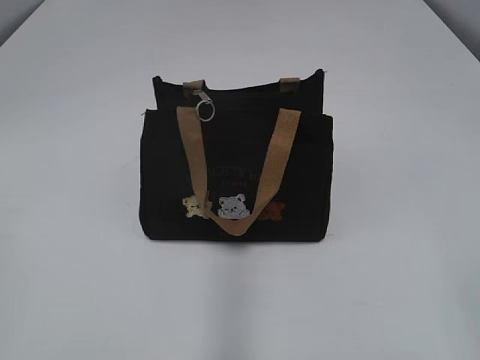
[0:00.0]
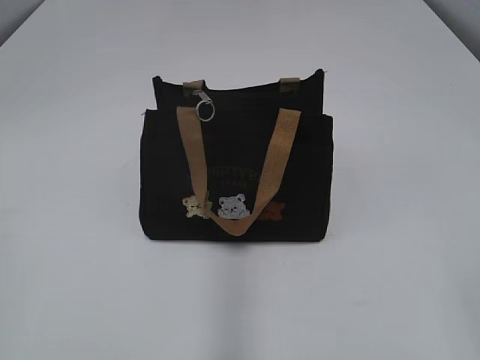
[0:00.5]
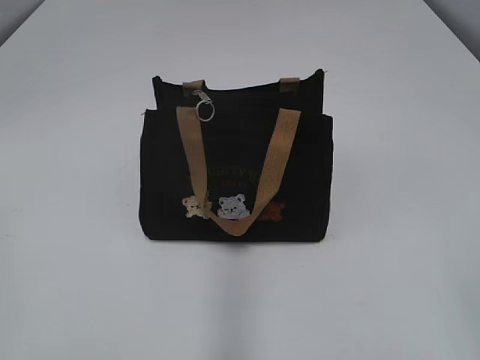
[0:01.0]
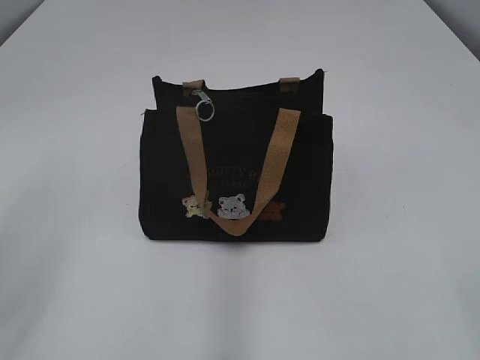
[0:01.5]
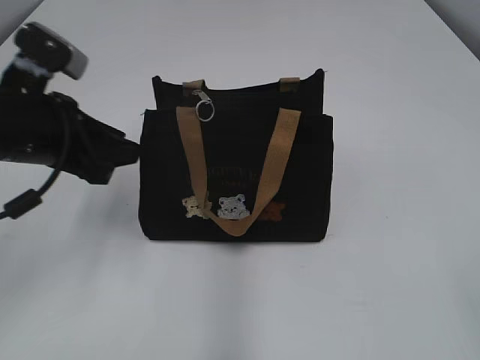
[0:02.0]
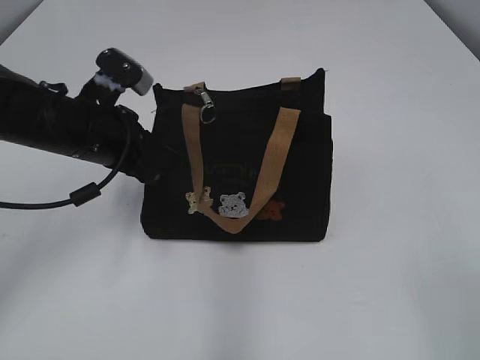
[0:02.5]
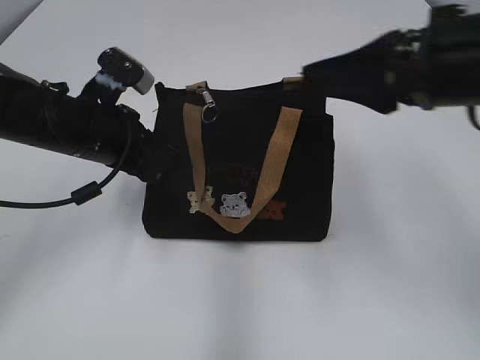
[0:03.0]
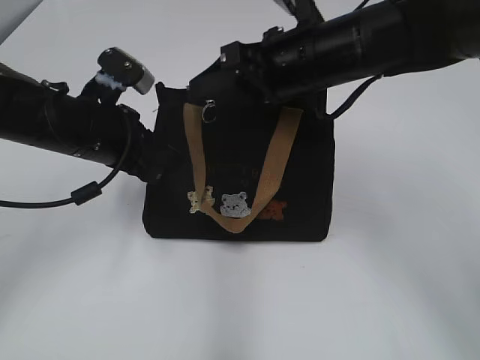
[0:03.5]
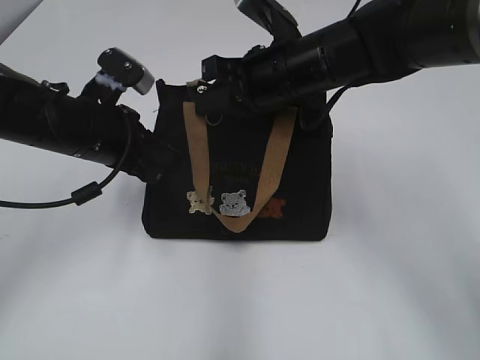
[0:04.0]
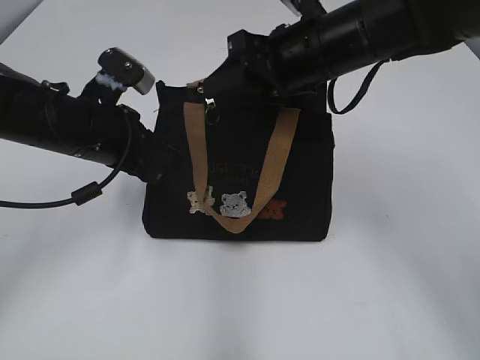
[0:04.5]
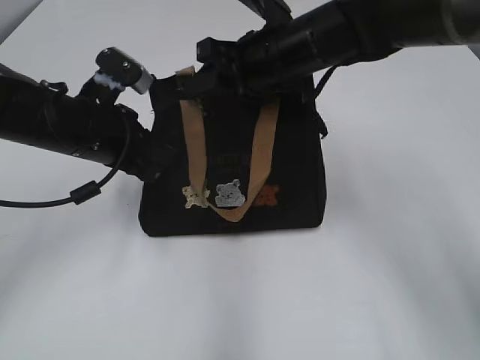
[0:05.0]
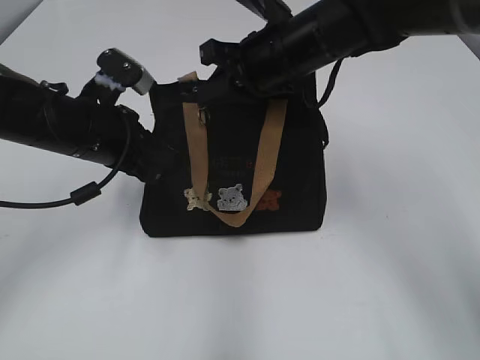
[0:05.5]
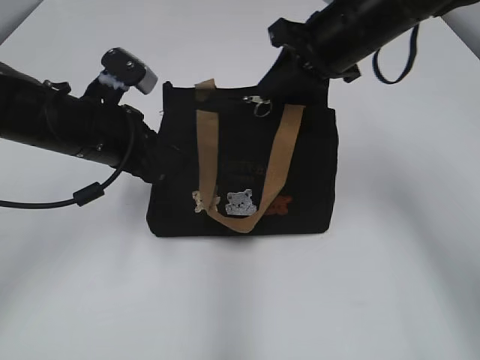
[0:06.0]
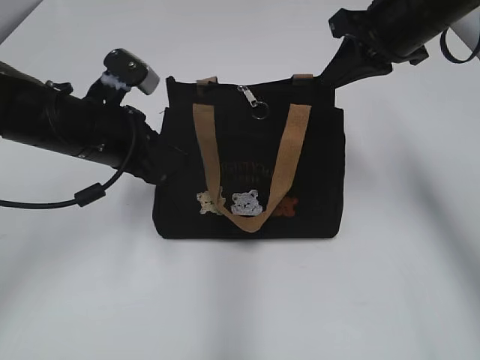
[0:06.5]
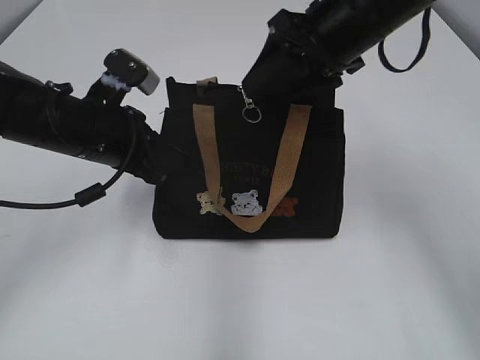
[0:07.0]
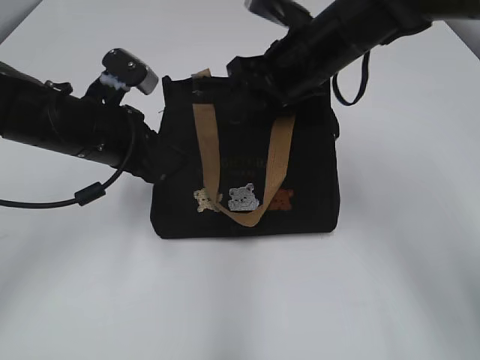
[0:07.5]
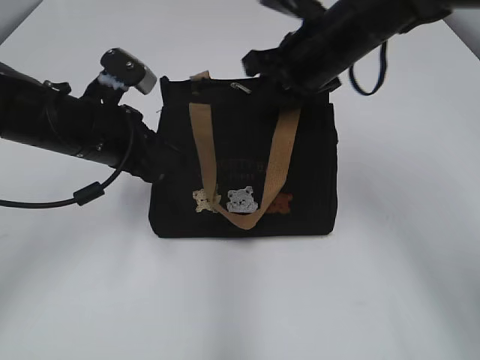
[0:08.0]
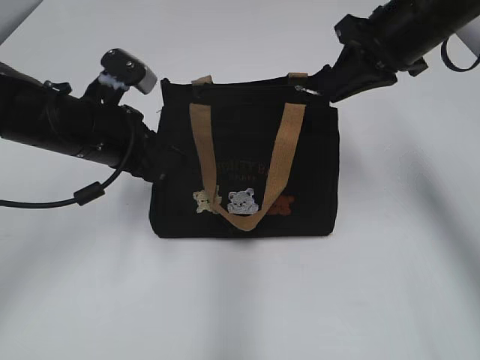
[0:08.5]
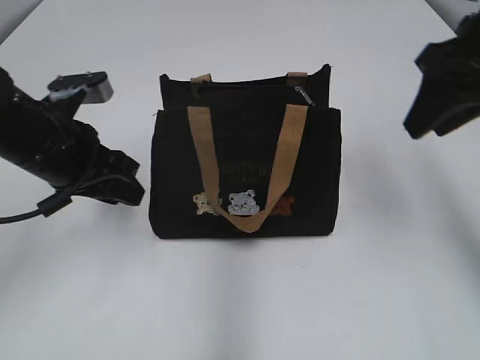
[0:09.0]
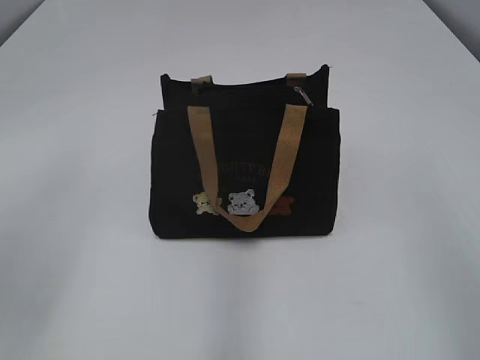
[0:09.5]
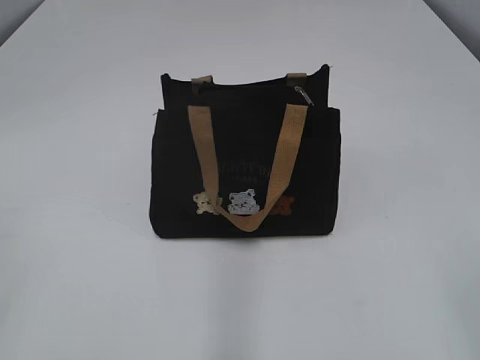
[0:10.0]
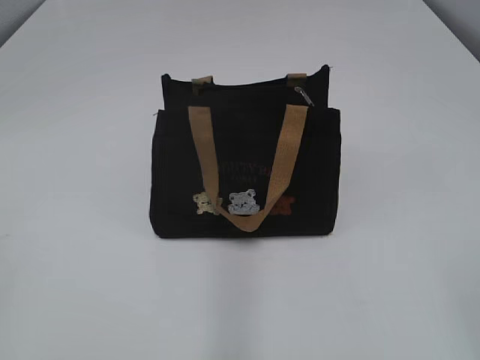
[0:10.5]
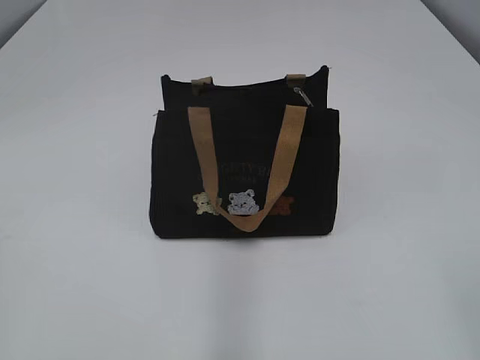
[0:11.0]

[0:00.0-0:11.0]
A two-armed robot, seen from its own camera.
Step, 0:00.0 to 0:08.5: Pull open the zipper with your right hand.
0:02.0 to 0:03.5: The right gripper heads forward and to the left, covering approximately 40 cm. Meanwhile the left gripper moves forward, to the right and downward, about 10 cm, and closes its fingers.
0:03.5 to 0:05.5: The right gripper moves about 5 cm, and closes.
0:05.5 to 0:07.5: The right gripper travels to the right and back again, approximately 15 cm each way, and opens its fingers.
0:07.5 to 0:09.0: The right gripper shifts roughly 15 cm to the right, backward and upward, and closes and opens again. The left gripper opens.
0:09.0 to 0:11.0: The right gripper moves backward, about 30 cm; the left gripper heads backward and to the left, covering some 35 cm.

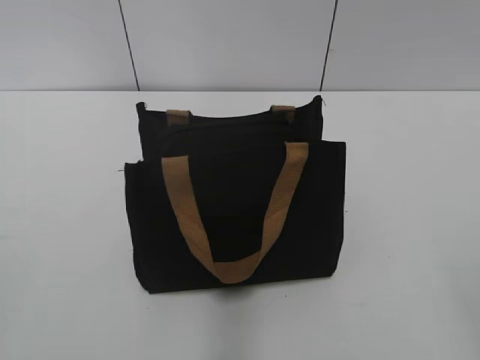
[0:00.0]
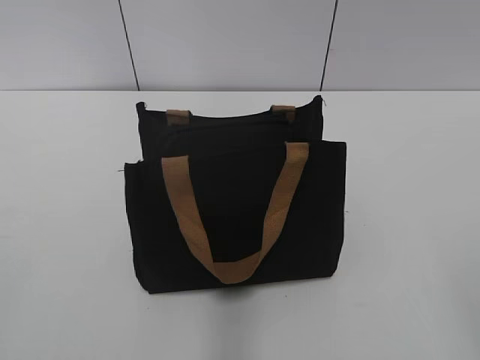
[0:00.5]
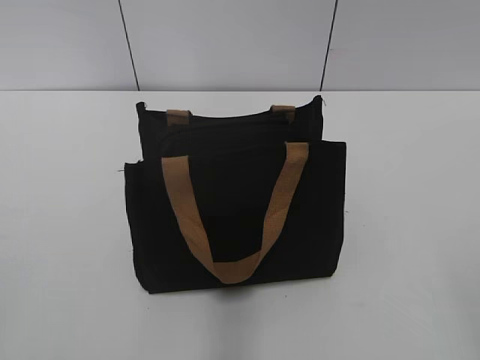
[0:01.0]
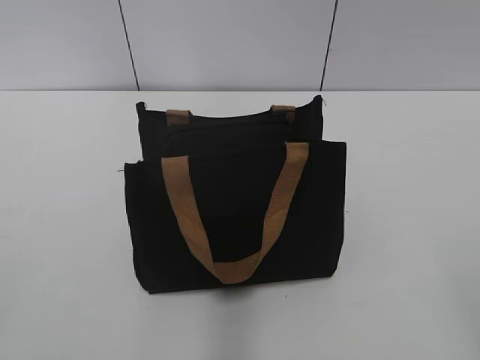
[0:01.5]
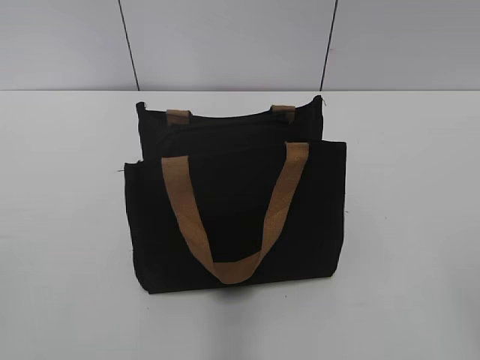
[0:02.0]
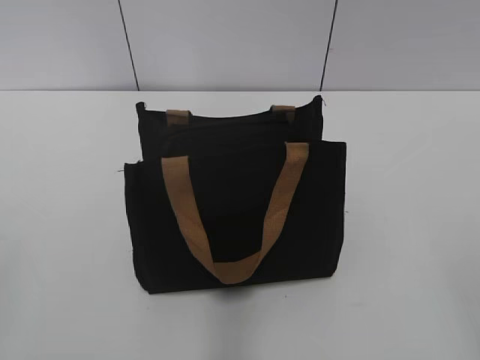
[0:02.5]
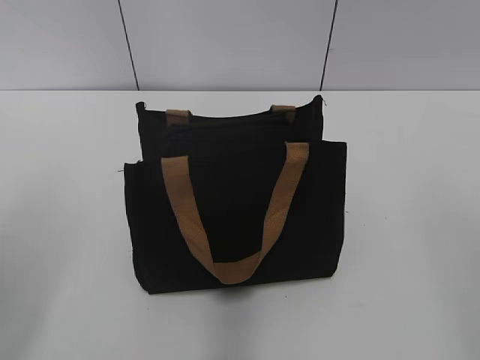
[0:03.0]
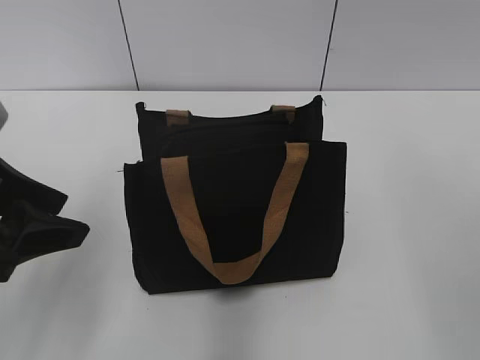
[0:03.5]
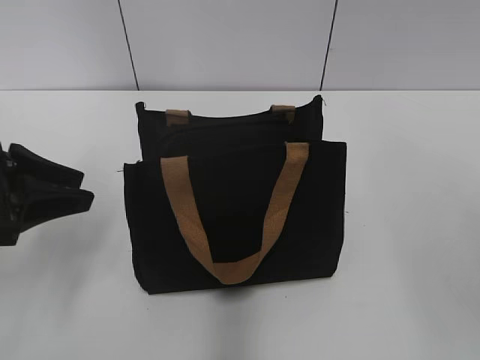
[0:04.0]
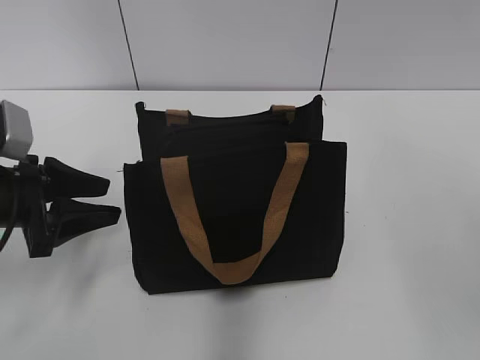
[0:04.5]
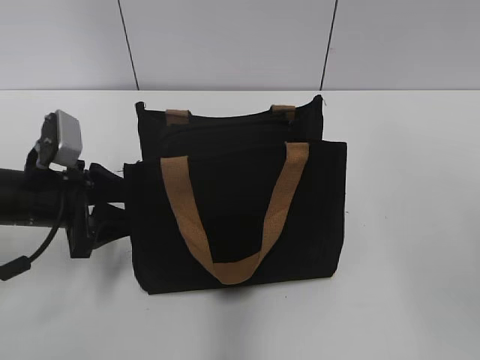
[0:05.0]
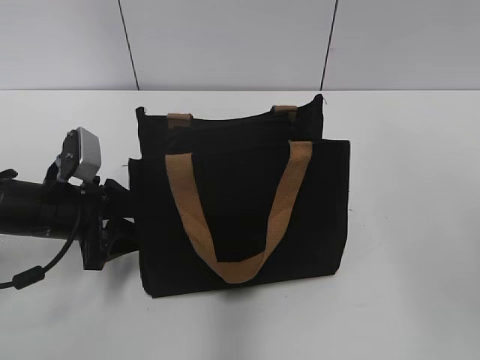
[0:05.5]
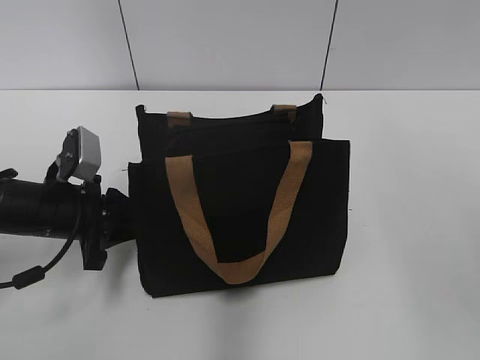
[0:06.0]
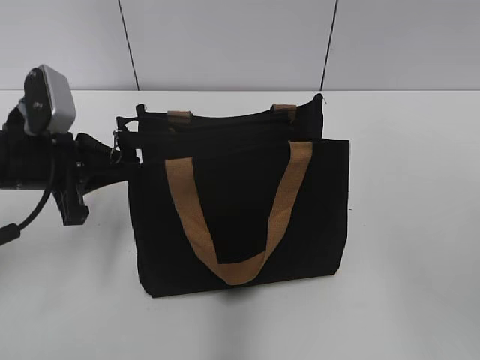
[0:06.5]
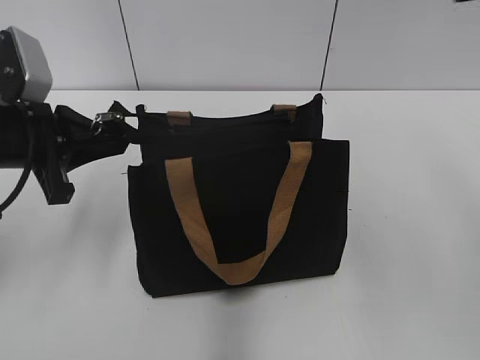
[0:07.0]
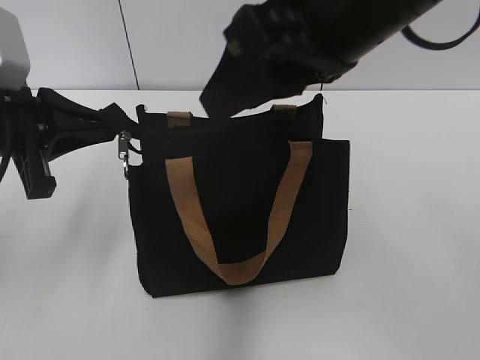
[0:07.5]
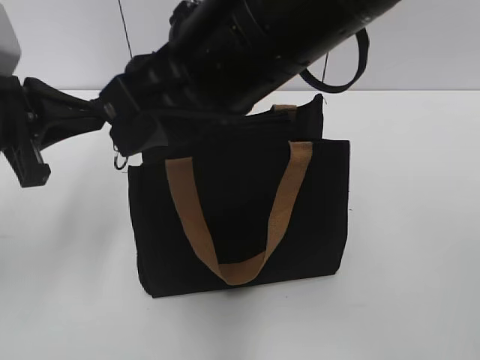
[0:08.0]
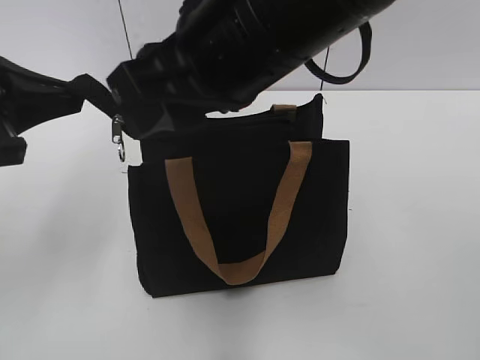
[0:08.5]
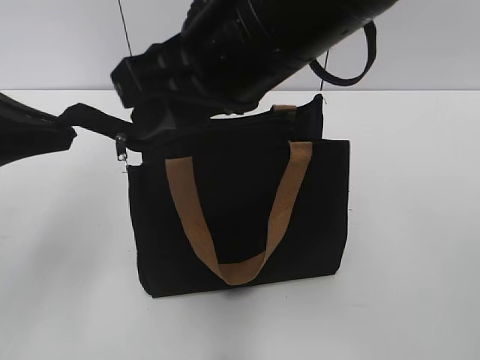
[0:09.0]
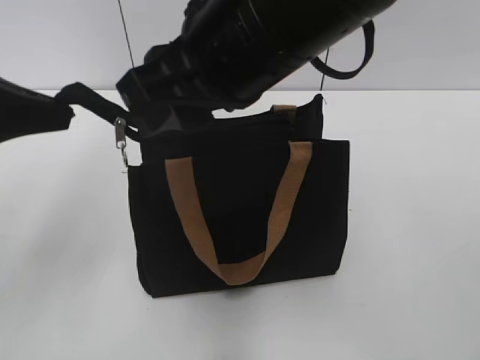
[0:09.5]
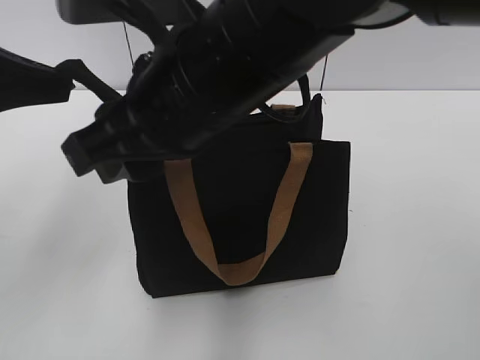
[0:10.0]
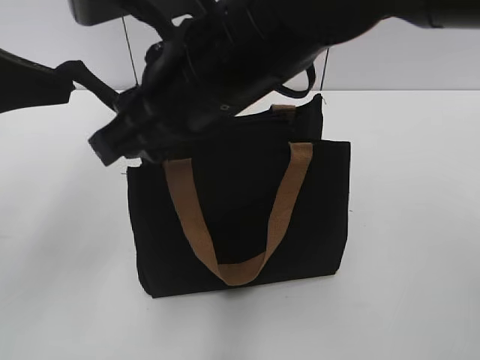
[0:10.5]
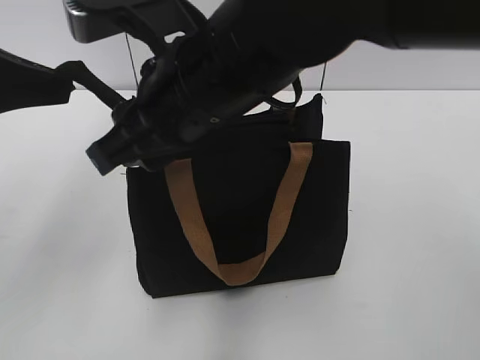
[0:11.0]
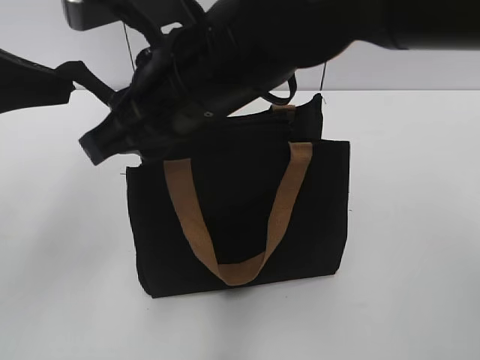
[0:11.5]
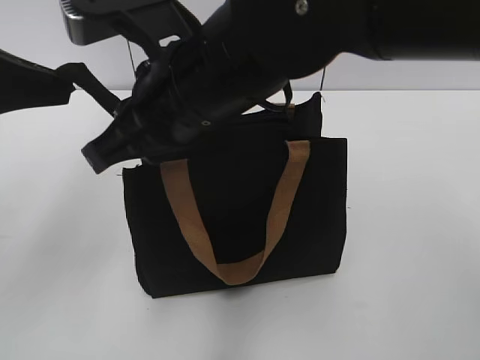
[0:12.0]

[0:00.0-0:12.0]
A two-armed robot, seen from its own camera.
0:02.0 to 0:04.0: The left gripper travels forward by some 25 cm.
0:04.0 to 0:06.0: The left gripper moves downward and to the right, some 10 cm, and closes its fingers.
0:06.0 to 0:08.0: The left gripper moves upward, approximately 15 cm, while the right gripper is displaced to the left by some 25 cm.
0:08.0 to 0:10.0: The left gripper heads upward, covering about 5 cm.
0:10.0 to 0:12.0: There are only small adjustments of the grippers.

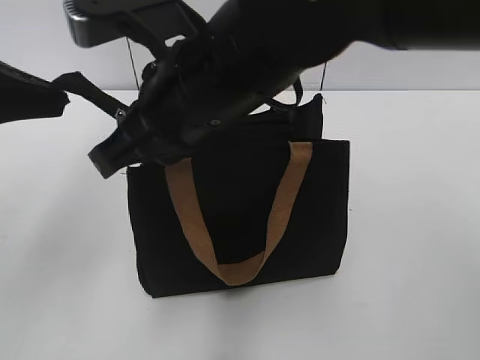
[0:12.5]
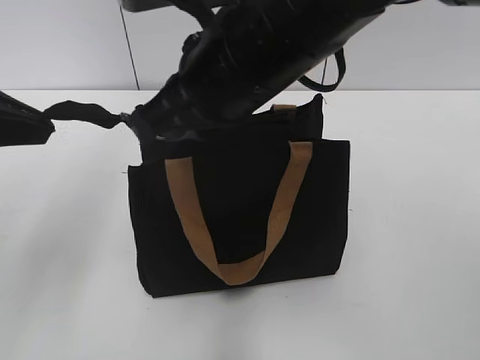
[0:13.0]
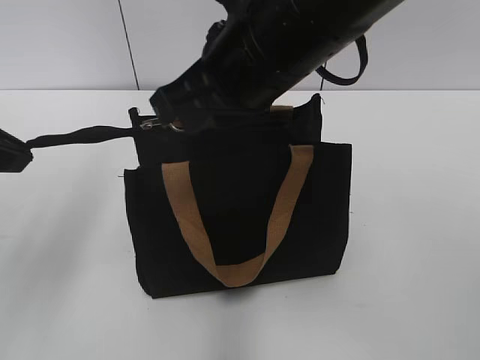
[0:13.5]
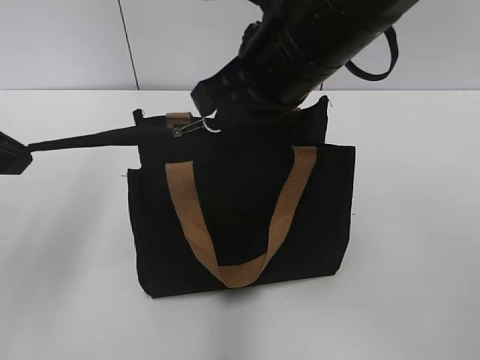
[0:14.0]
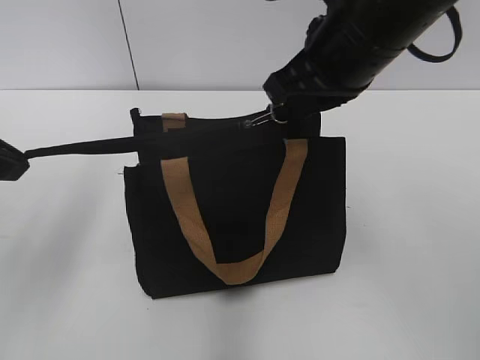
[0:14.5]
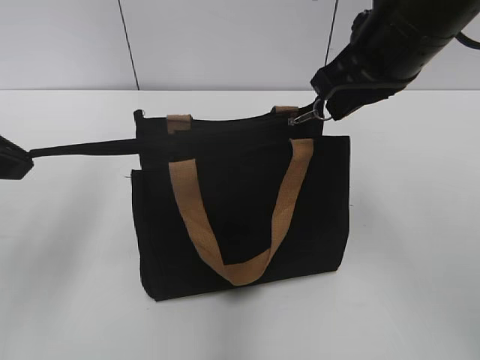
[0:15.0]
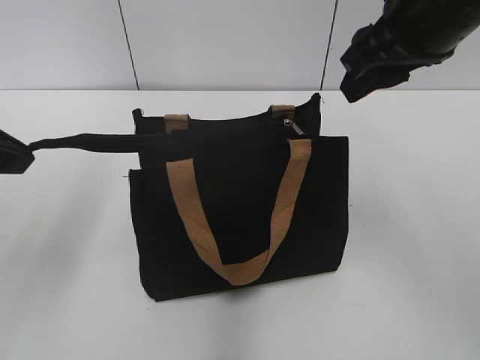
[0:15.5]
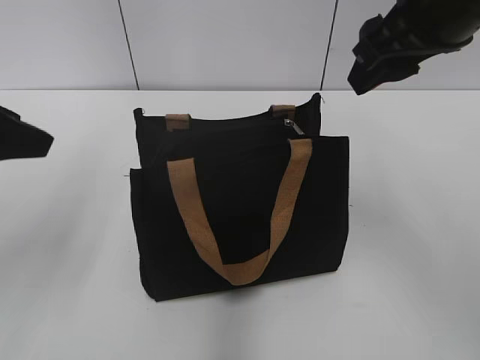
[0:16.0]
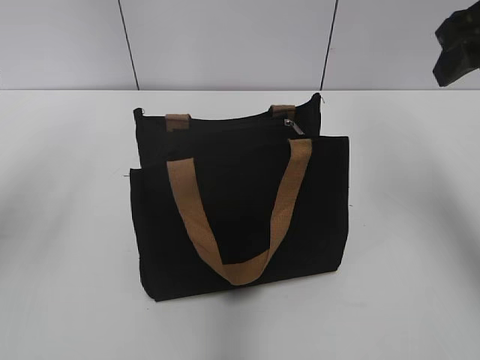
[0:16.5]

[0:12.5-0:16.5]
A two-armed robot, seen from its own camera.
Step, 0:12.5 to 0:15.0: Zip up the bag with your right hand.
0:12.5 to 0:14.5: The right gripper moves to the right and forward, roughly 15 cm.
0:14.5 to 0:16.5: The right gripper goes about 15 cm to the right, and opens up. The left gripper ends up approximately 5 cm from where it was, and opens.
